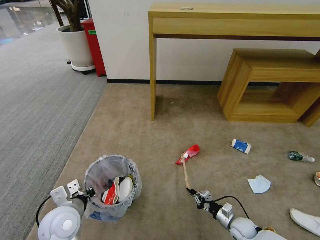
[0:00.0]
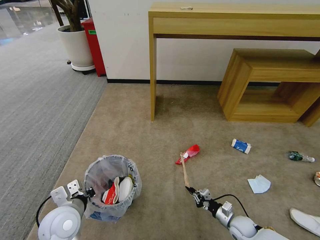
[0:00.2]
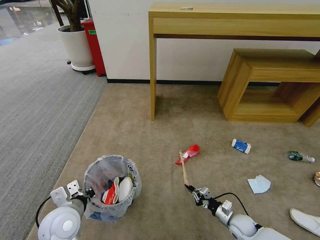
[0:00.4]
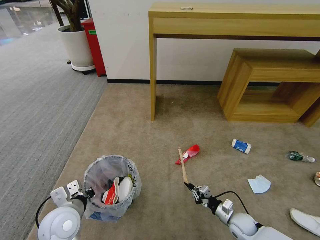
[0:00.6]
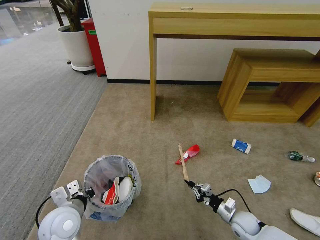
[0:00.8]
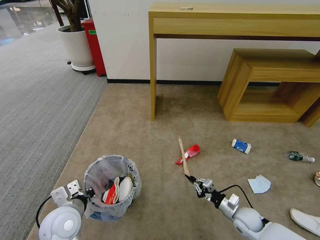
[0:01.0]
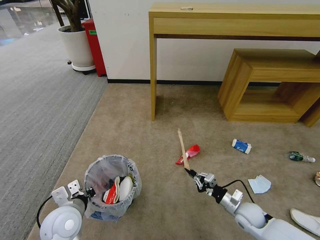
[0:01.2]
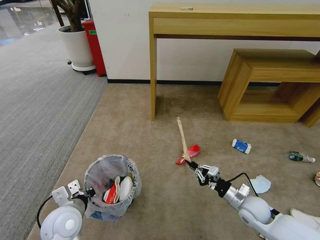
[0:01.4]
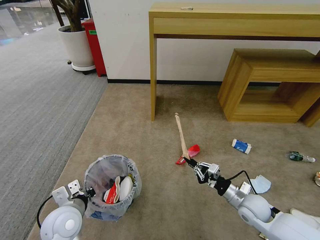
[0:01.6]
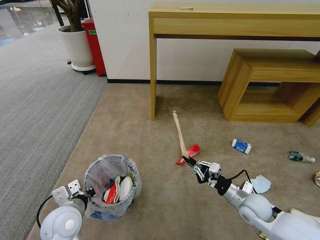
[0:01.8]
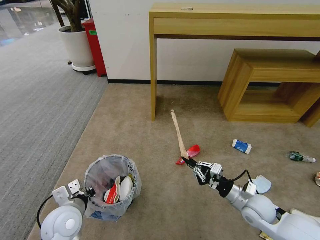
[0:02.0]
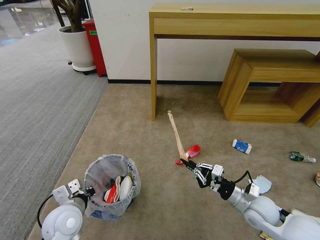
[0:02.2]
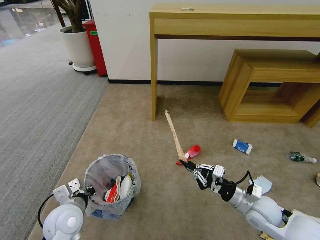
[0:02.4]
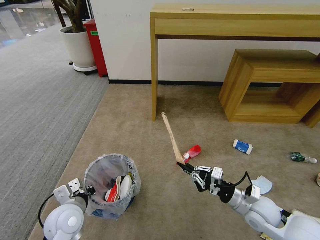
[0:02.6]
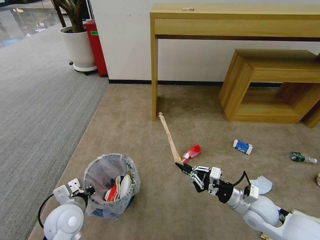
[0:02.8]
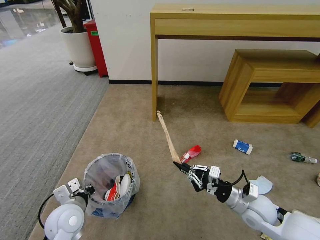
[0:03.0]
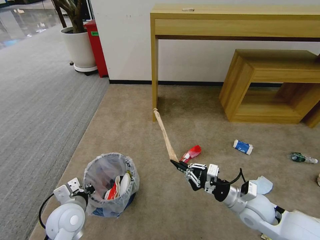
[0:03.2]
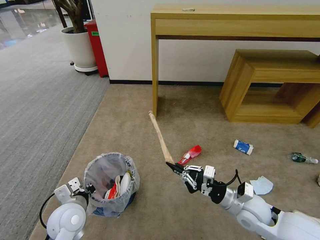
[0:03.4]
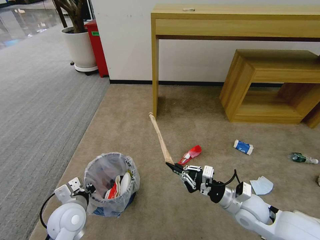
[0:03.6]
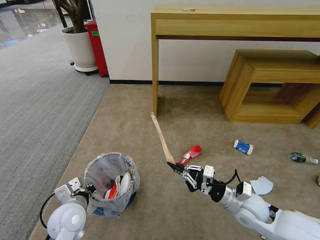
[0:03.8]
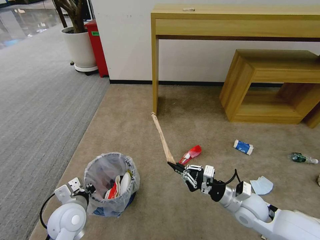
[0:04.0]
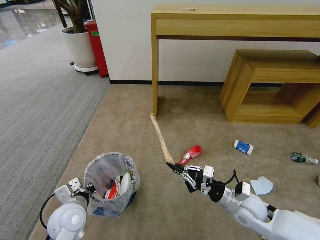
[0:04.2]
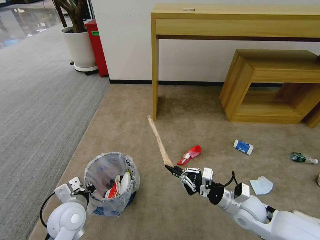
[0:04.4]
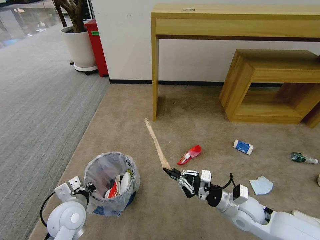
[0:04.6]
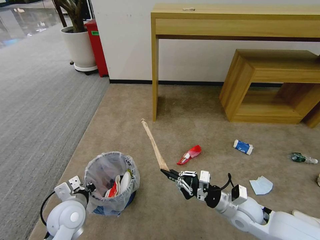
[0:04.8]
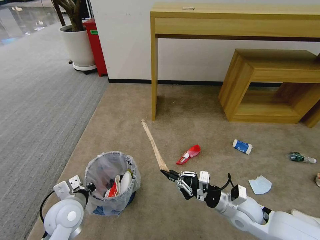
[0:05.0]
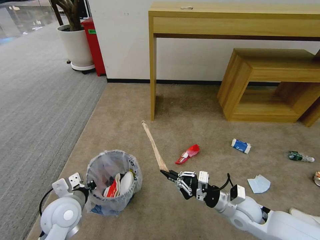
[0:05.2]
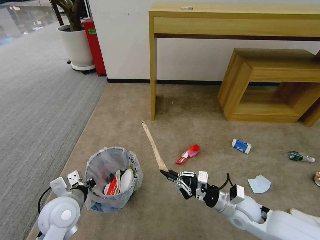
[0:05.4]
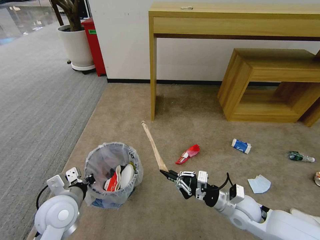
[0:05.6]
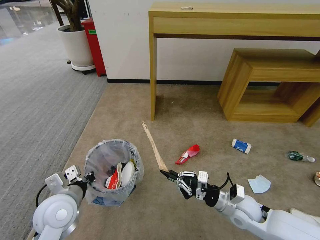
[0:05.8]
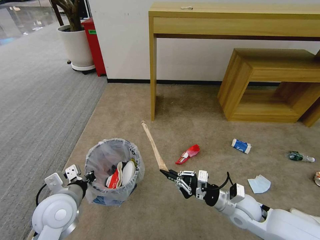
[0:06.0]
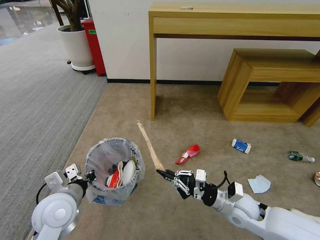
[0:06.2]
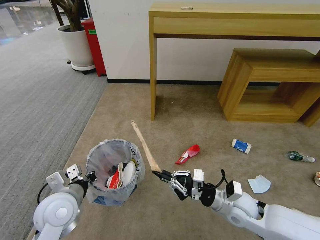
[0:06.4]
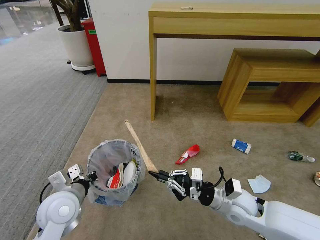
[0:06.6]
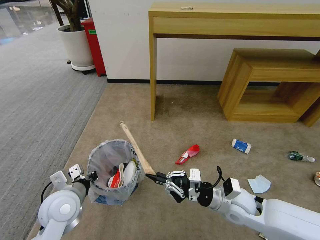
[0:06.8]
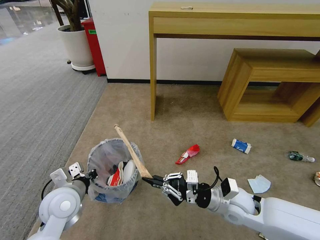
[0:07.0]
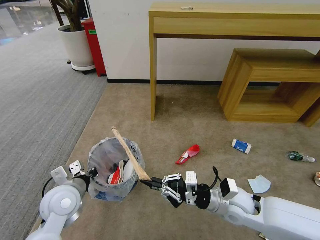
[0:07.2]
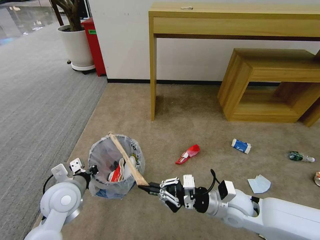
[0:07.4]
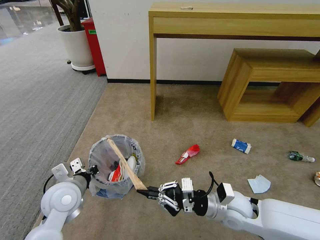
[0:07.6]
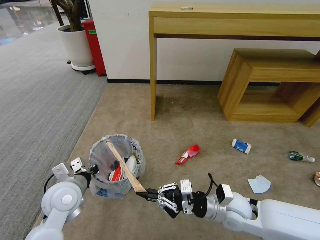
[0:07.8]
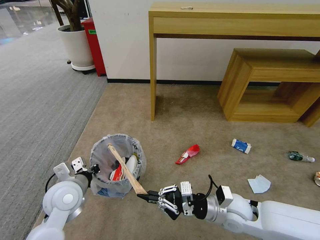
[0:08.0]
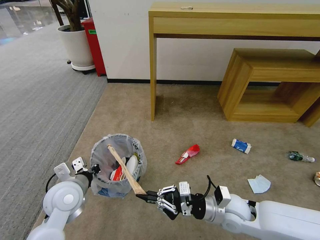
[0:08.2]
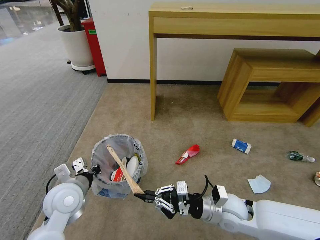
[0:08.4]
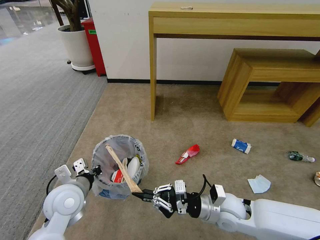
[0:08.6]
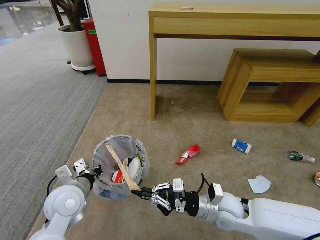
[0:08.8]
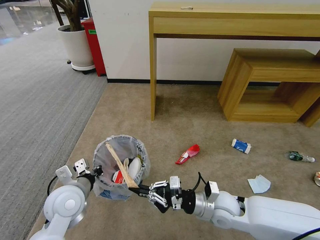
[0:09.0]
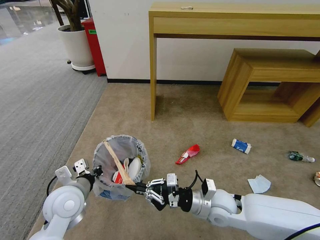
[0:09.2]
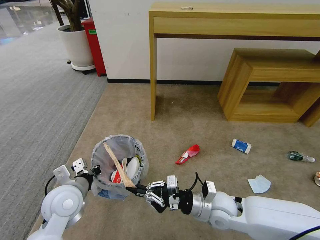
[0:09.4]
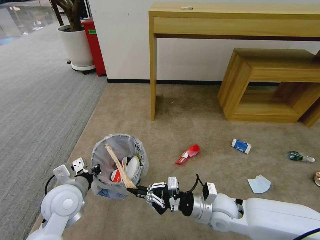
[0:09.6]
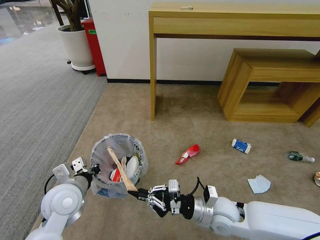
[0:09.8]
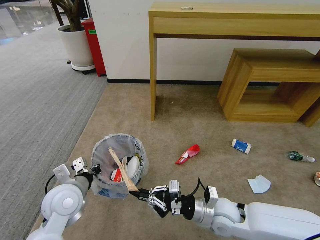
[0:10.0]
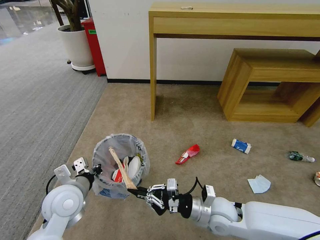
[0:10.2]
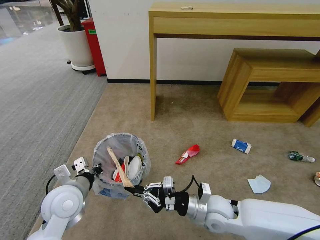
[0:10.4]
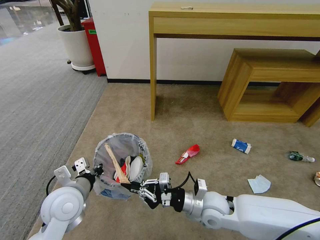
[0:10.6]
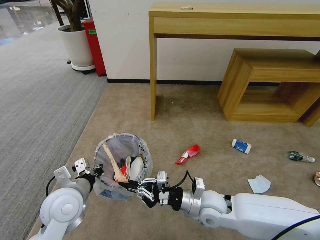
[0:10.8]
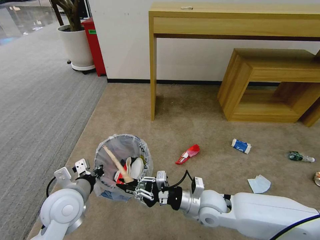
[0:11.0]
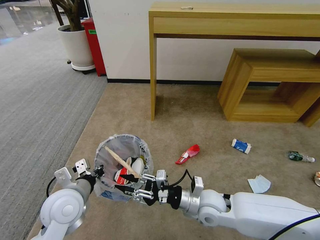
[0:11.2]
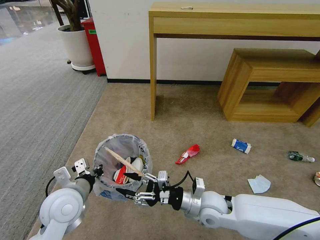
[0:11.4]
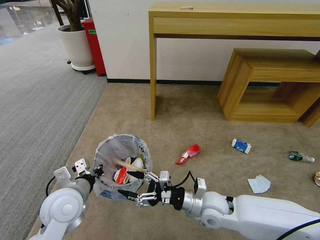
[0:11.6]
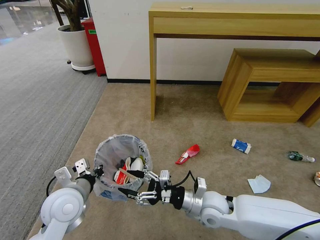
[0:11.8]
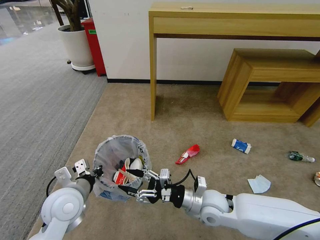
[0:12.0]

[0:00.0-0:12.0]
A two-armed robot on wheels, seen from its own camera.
Task of the whole recording: Pick up the trash bin and place the garbage on the floor into it.
0:00.0 to 0:01.6: The right gripper moves upward, some 15 cm.
0:01.6 to 0:03.0: The right gripper travels upward by about 5 cm.
0:03.0 to 0:04.4: The grippers move only a little.
0:04.4 to 0:06.0: The left gripper moves upward, roughly 10 cm.
0:06.0 to 0:07.6: The right gripper ends up about 5 cm from where it was.
0:07.6 to 0:10.4: The grippers stay close to where they were, moving slightly.
0:10.4 to 0:12.0: The right gripper opens up.

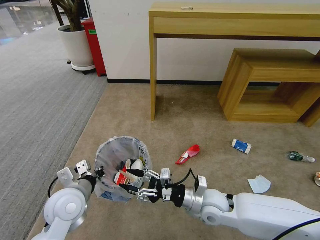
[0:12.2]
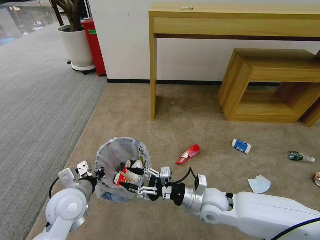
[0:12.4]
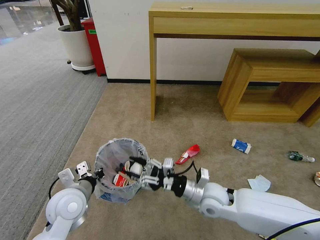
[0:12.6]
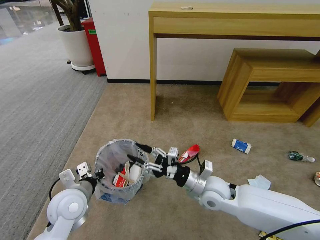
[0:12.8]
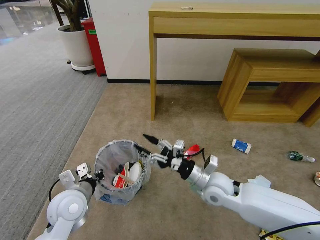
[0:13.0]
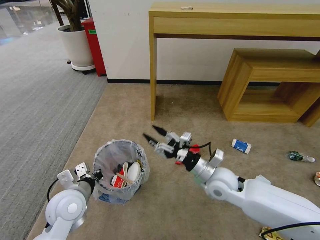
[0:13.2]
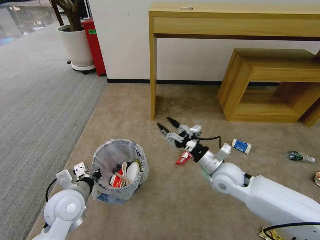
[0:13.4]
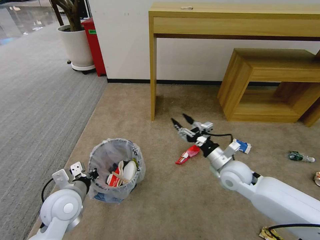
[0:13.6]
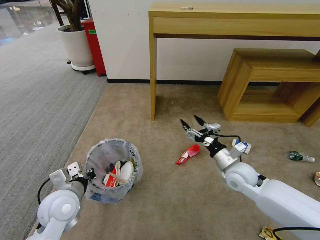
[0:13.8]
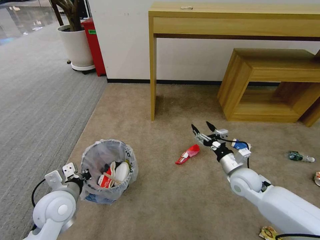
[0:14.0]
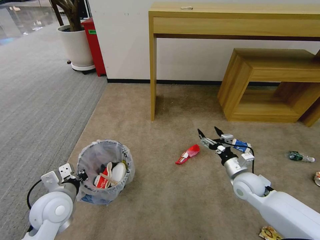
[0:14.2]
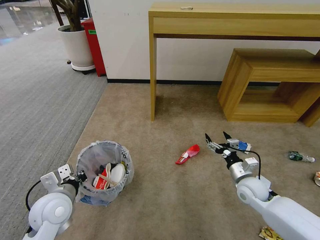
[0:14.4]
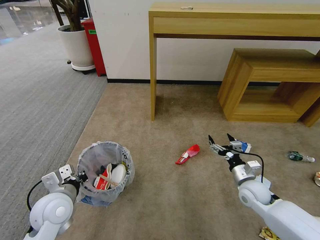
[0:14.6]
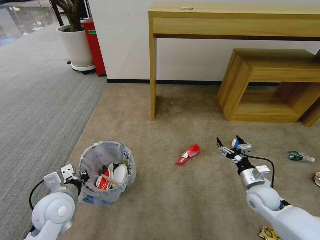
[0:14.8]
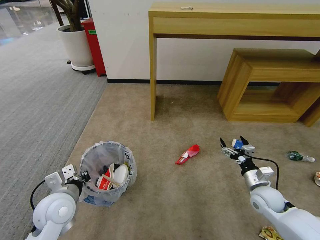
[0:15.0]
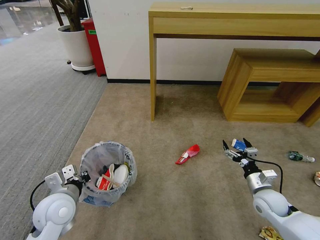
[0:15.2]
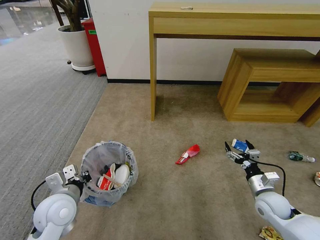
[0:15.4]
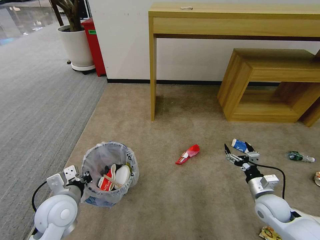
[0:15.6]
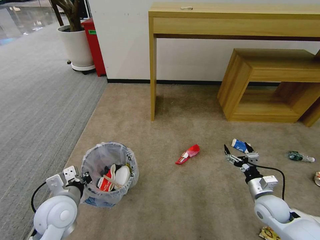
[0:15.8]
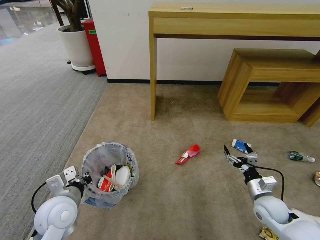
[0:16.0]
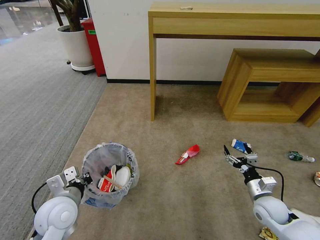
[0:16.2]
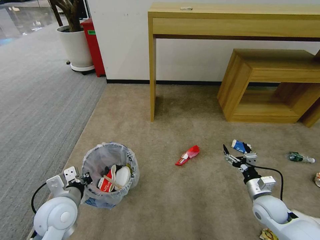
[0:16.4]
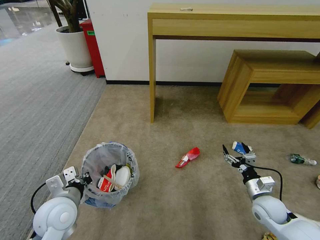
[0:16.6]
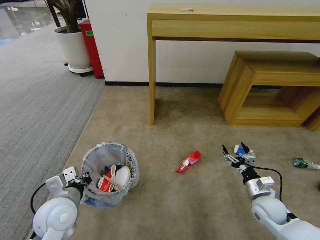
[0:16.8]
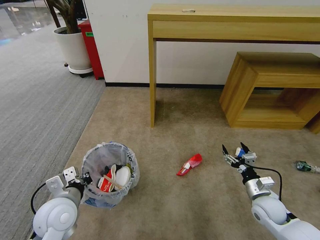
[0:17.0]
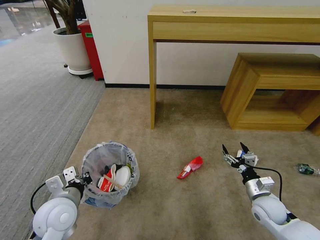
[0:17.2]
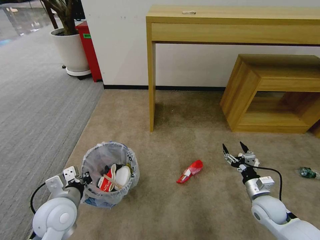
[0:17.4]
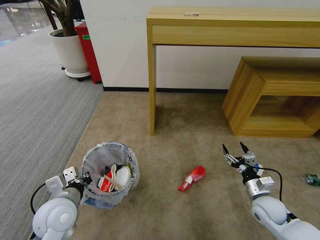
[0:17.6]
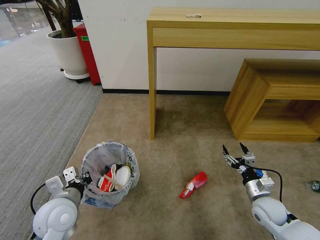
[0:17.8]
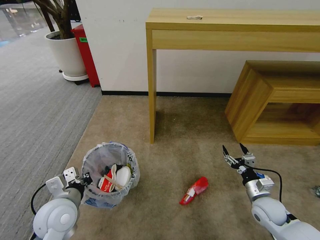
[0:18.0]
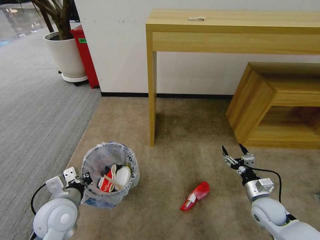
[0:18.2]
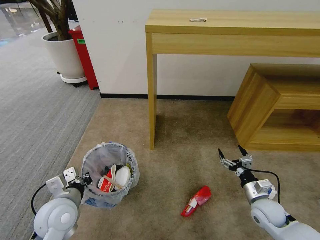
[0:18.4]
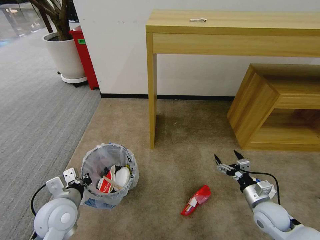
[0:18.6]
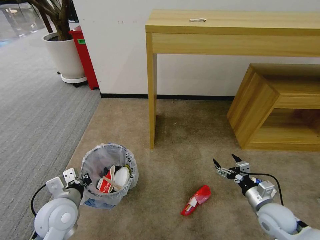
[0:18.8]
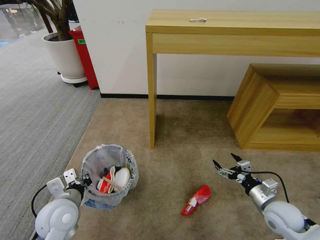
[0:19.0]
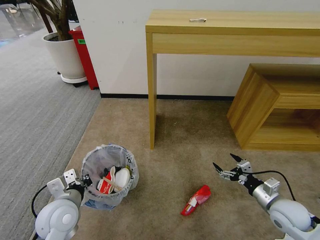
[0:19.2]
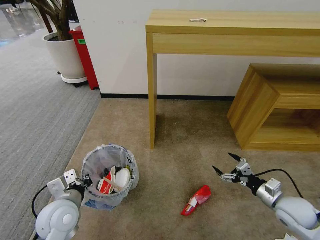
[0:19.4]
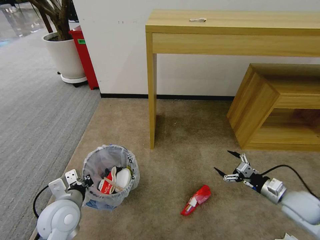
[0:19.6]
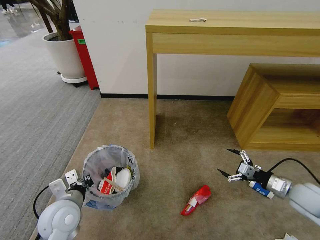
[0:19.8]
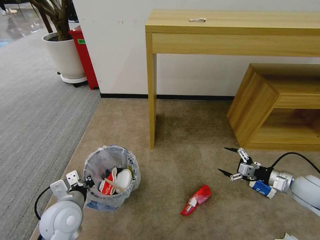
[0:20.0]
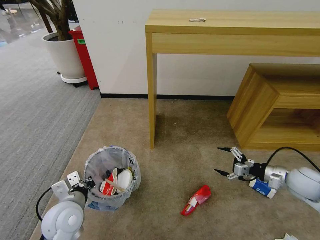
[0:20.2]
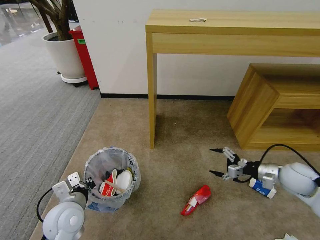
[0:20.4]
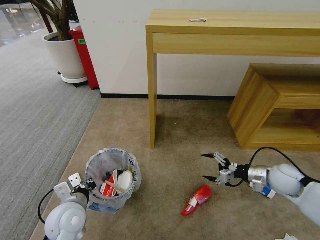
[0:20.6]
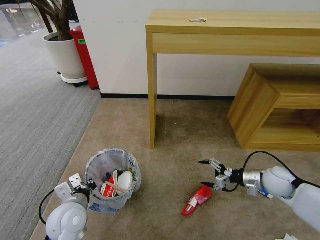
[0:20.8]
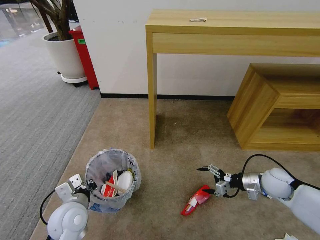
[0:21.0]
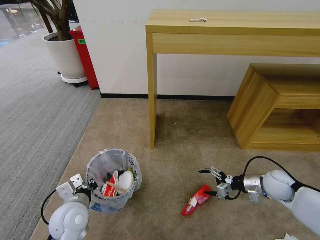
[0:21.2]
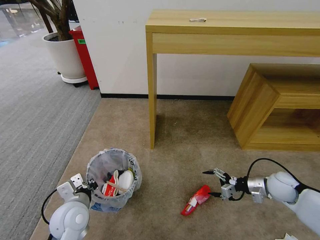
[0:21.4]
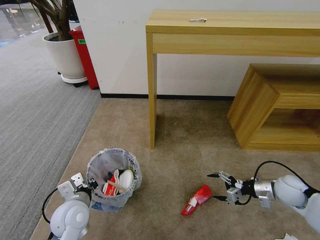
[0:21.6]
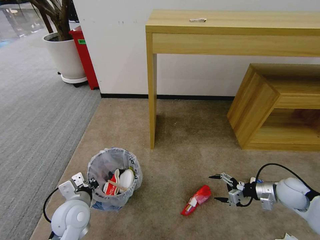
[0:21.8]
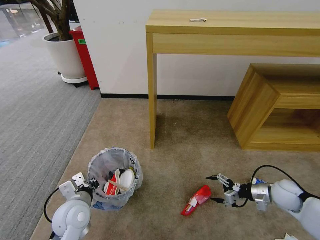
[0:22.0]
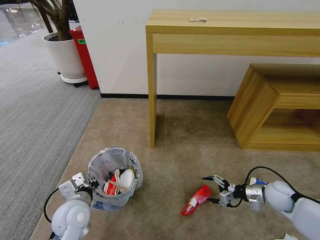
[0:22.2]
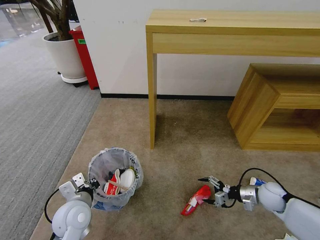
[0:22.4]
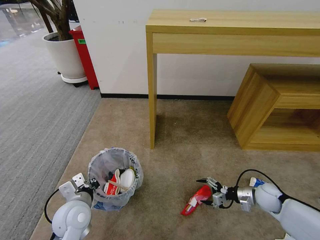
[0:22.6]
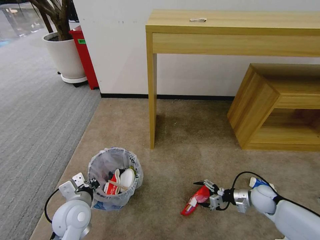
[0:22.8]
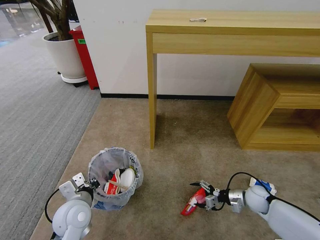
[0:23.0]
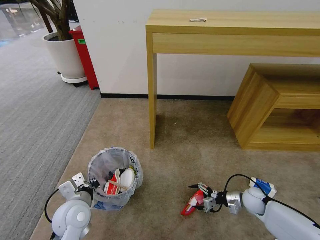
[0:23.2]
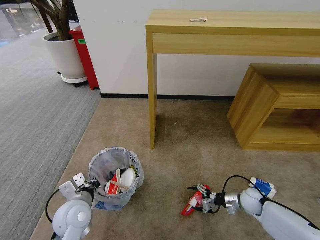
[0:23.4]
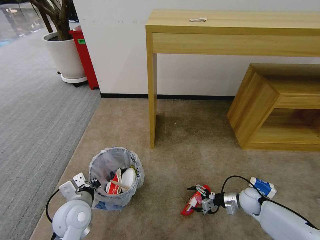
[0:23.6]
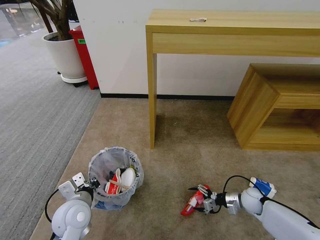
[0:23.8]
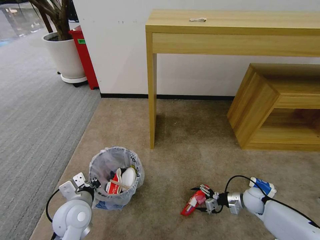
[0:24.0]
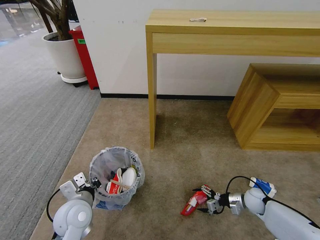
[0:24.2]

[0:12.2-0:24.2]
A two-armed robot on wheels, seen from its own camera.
Task of the whole recording: Pick up the trash bin and place the garbage on the floor into it.
0:12.2 to 0:13.8: The right gripper travels to the right and forward by some 15 cm.
0:13.8 to 0:15.2: The right gripper heads to the right, downward and backward, covering approximately 15 cm.
0:15.2 to 0:16.6: The grippers move only a little.
0:18.2 to 0:19.8: The right gripper heads to the right and upward, covering some 15 cm.
0:19.8 to 0:21.2: The right gripper heads forward, covering roughly 5 cm.
0:21.2 to 0:22.6: The right gripper moves downward, about 10 cm.
0:22.6 to 0:24.2: The right gripper is displaced downward by about 5 cm.
